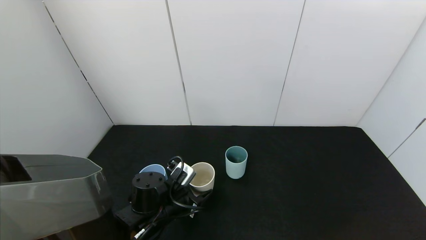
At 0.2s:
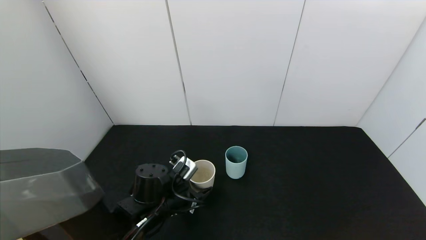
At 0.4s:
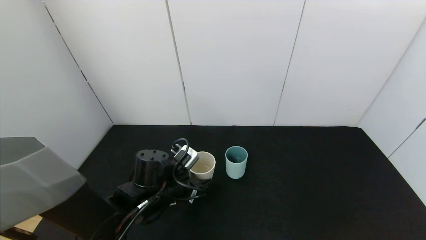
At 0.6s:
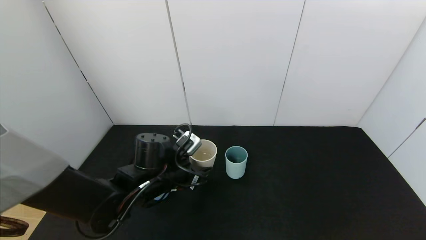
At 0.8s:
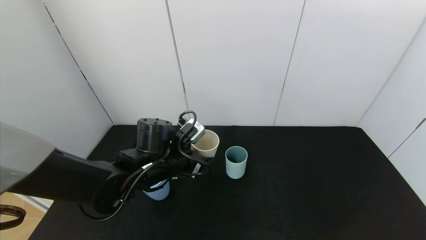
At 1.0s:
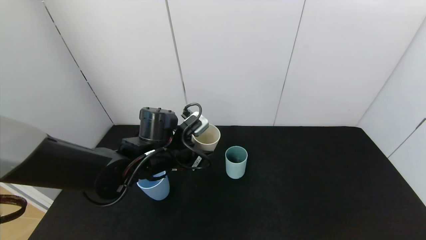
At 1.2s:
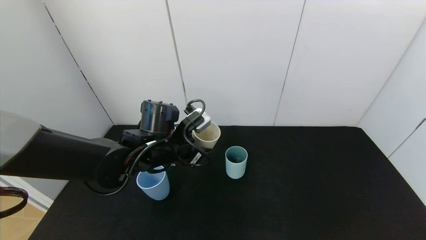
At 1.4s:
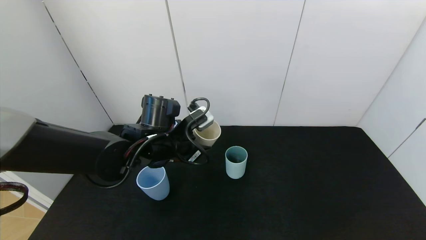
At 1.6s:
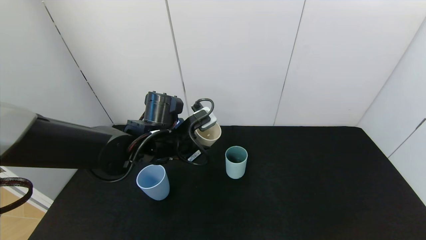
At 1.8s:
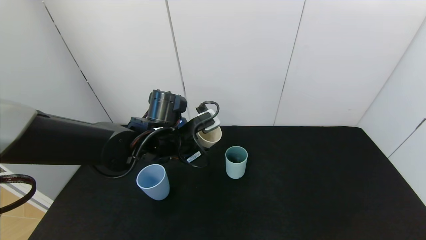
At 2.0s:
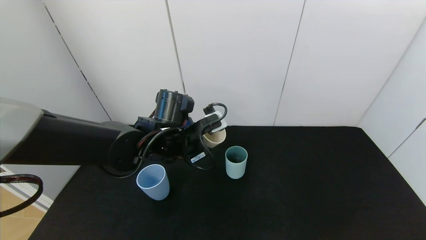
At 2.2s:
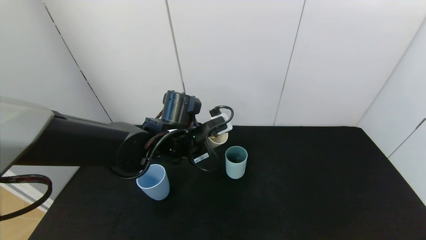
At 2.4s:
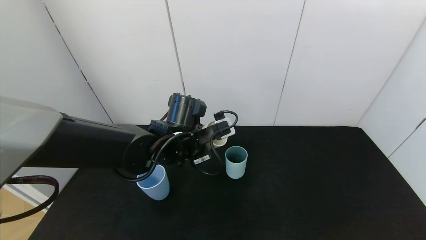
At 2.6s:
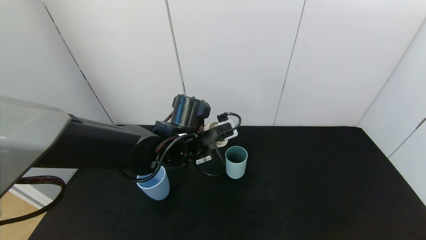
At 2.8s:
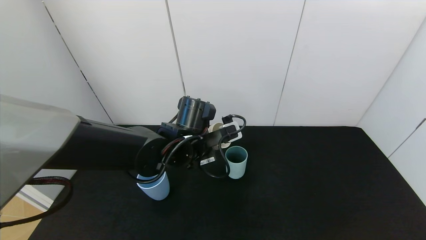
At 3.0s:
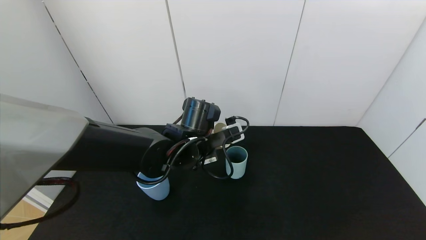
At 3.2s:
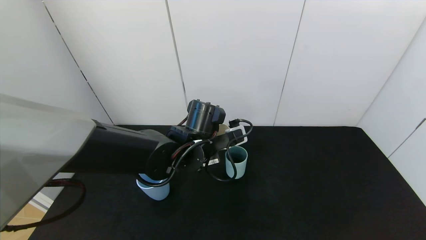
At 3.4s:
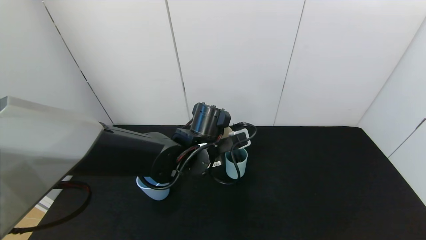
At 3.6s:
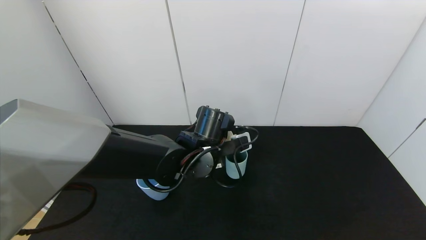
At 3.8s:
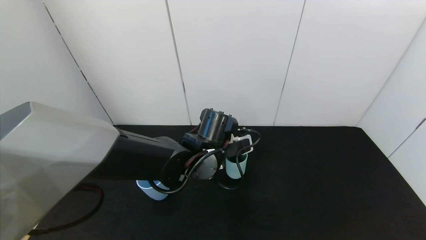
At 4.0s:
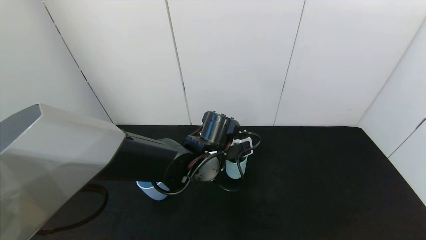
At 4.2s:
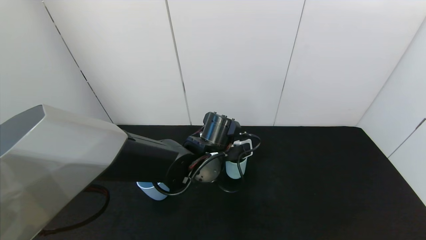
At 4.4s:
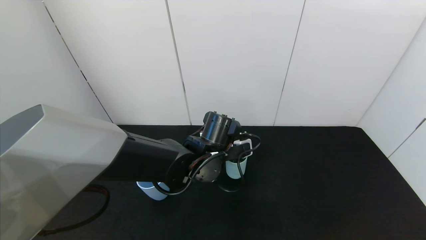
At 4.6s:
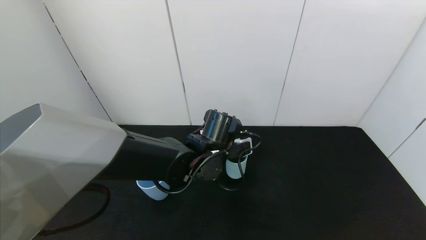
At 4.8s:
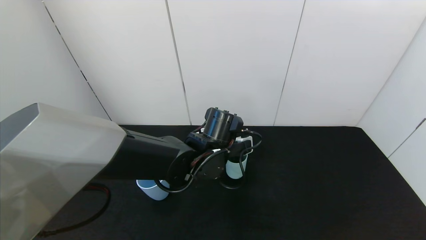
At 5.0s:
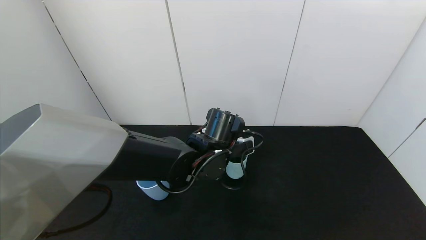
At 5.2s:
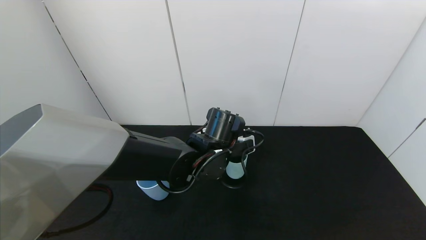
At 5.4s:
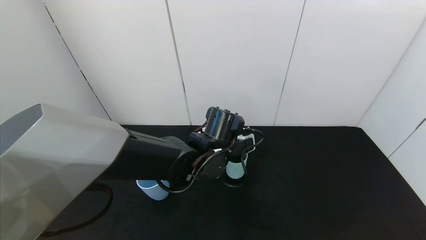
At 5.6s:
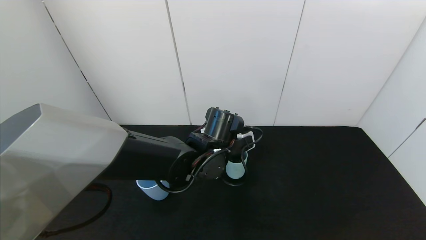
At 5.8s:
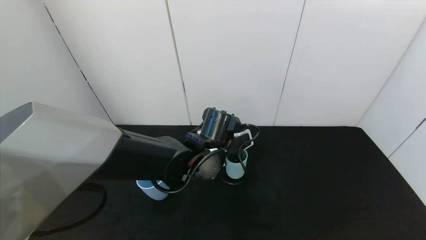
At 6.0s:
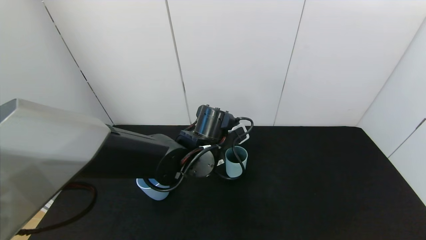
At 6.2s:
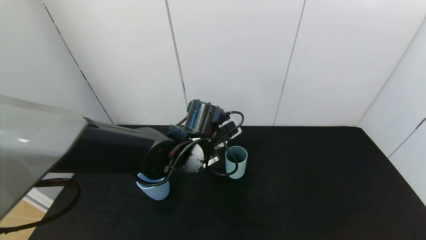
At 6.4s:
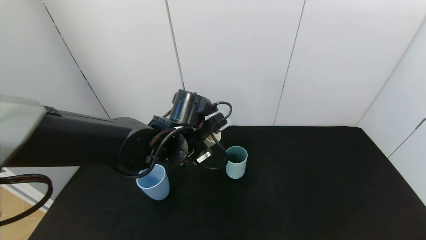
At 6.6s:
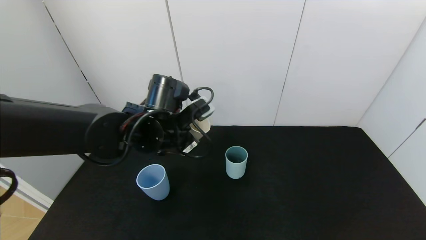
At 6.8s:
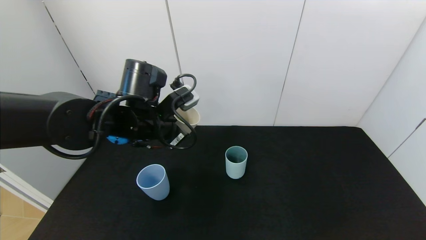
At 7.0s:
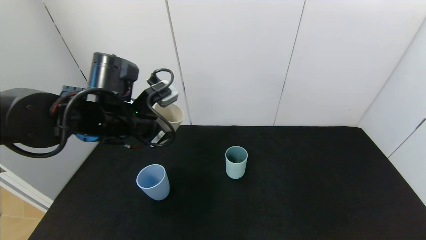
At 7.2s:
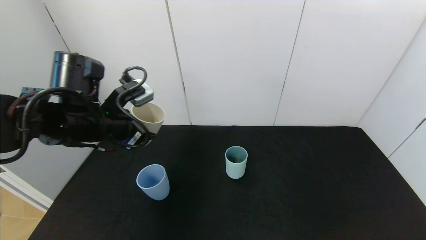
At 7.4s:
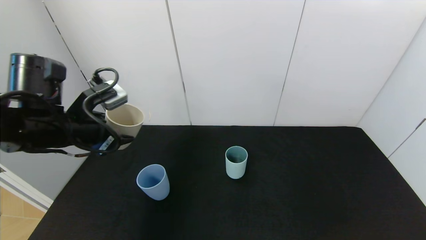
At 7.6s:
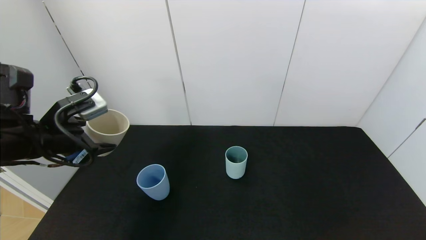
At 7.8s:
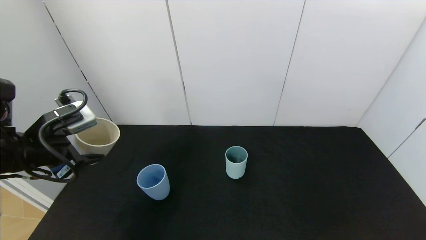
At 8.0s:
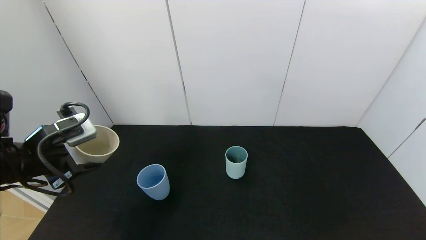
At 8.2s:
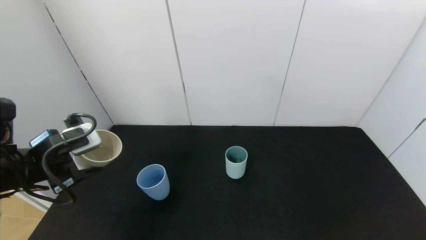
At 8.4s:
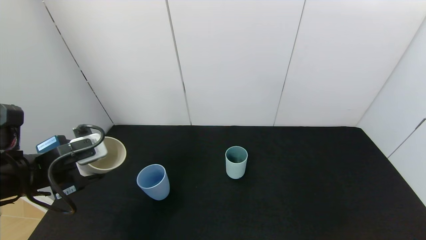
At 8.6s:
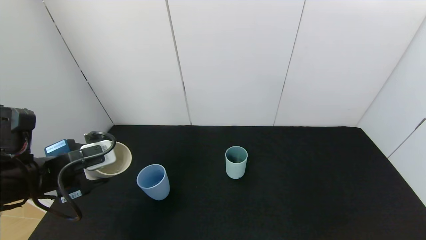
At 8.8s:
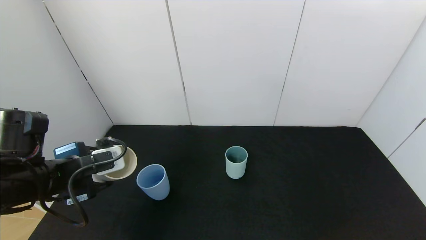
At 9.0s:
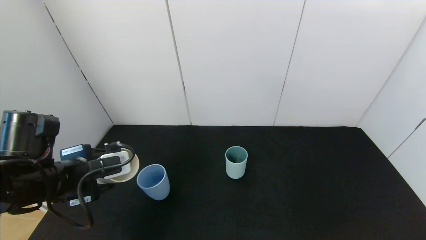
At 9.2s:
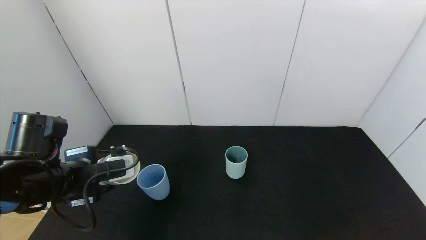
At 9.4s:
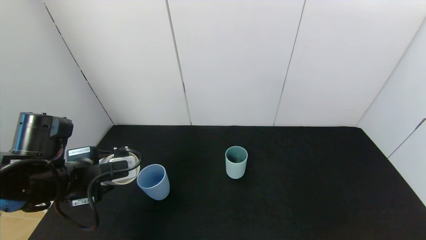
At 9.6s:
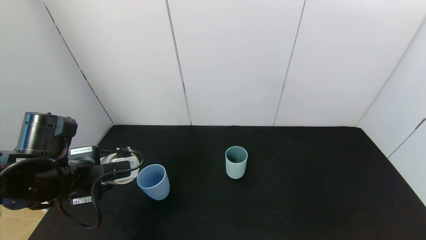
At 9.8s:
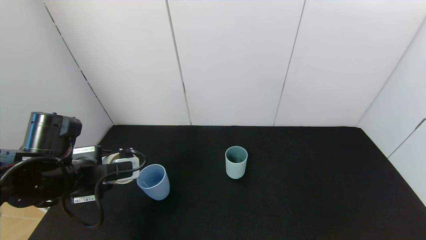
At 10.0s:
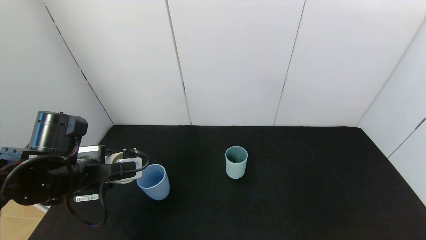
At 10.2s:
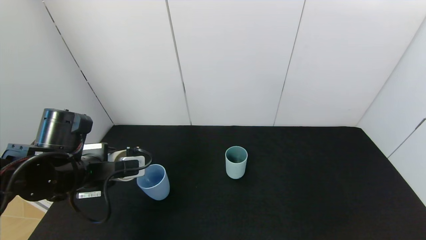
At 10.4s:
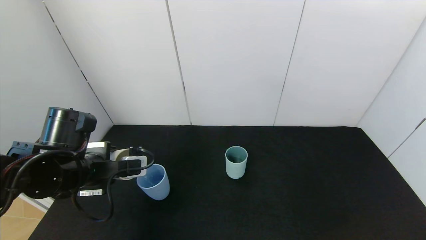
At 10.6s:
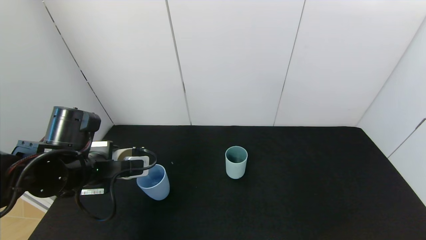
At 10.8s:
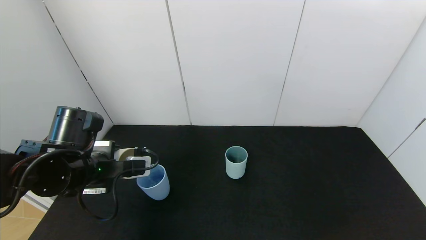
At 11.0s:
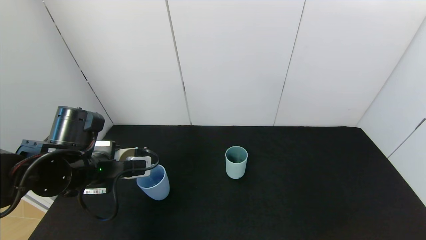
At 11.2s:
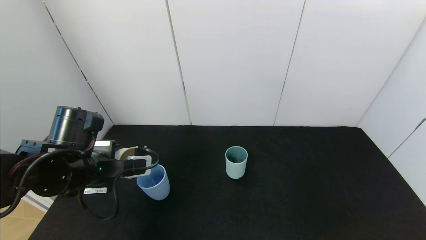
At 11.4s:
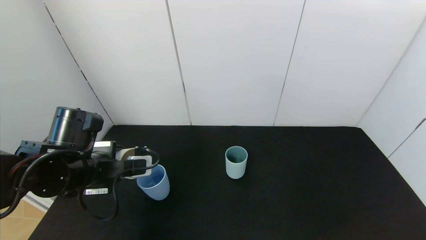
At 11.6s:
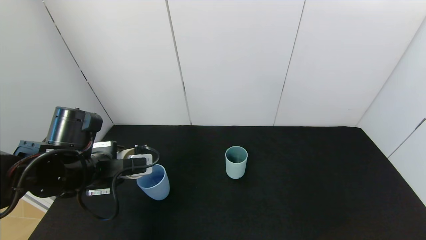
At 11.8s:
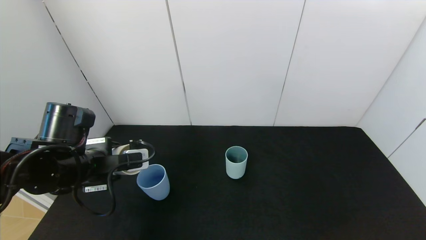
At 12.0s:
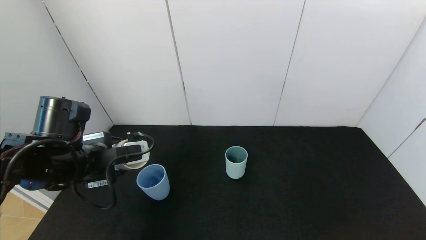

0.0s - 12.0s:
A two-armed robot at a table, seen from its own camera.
Task of the whole recording: use the gripper to pour the water into the other two cups on black table.
Step, 0.0s - 6.2s: Pour water into the green plastic cup with left gripper.
Step, 6.4s - 11.8s: Pour water into the blue plastic cup with left gripper.
0.0s - 1.6s: The left gripper shifts approximately 15 cm upward and forward.
1.6s - 3.0s: The left gripper is displaced to the right by approximately 5 cm.
3.0s - 6.0s: The grippers move only a little.
6.0s - 7.6s: The left gripper moves to the left, some 25 cm.
7.6s - 9.0s: The left gripper shifts about 5 cm downward.
9.0s - 12.0s: The grippers make only small movements.

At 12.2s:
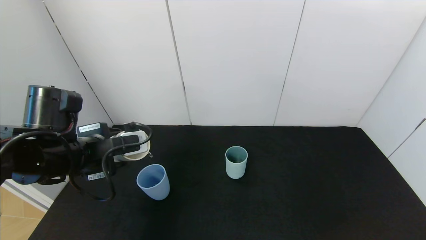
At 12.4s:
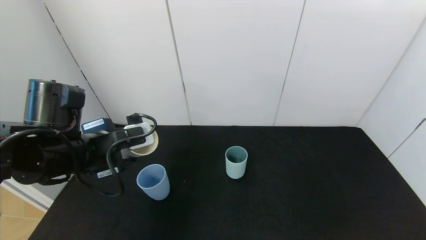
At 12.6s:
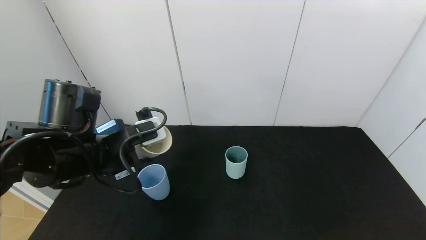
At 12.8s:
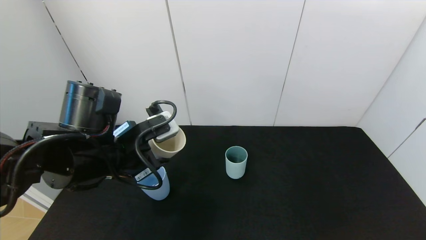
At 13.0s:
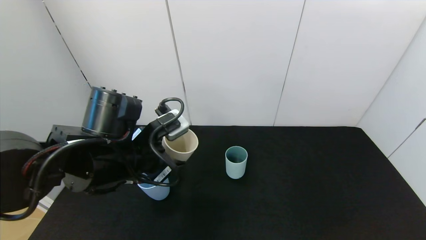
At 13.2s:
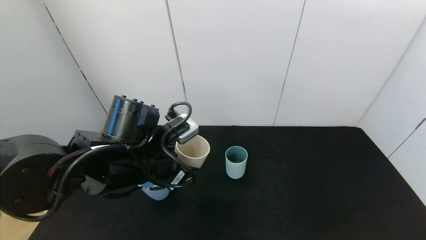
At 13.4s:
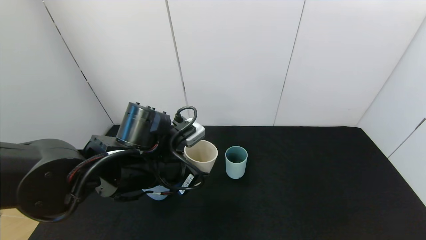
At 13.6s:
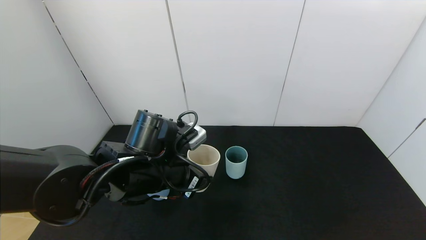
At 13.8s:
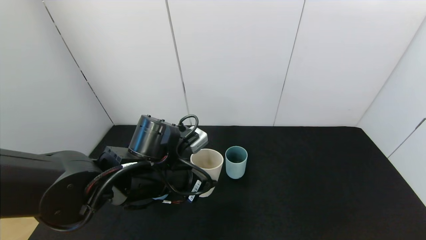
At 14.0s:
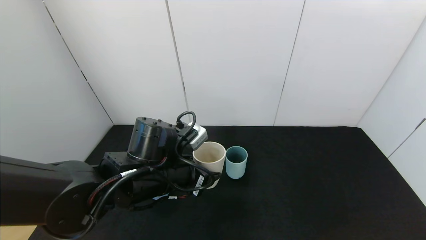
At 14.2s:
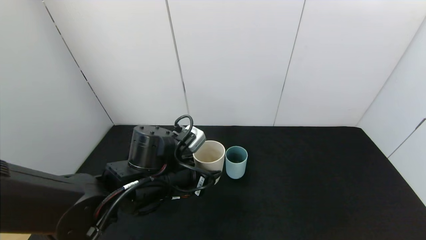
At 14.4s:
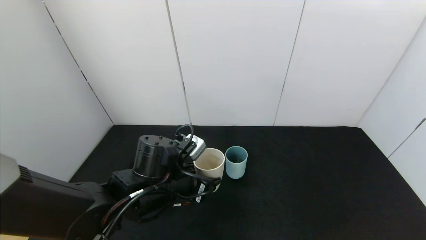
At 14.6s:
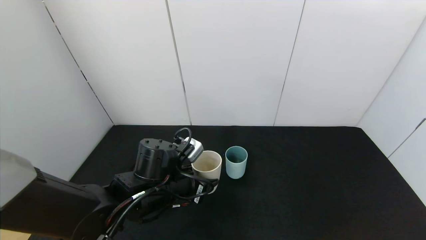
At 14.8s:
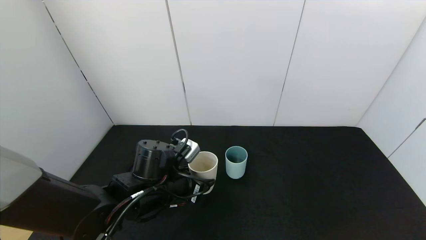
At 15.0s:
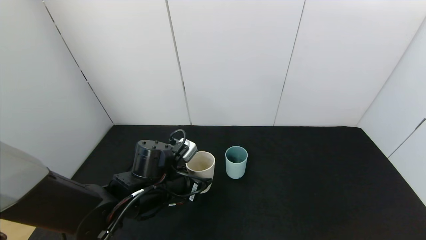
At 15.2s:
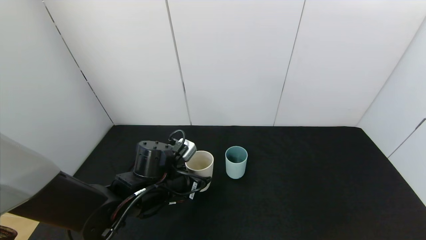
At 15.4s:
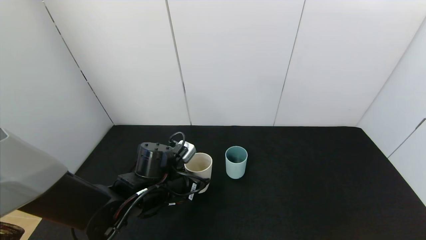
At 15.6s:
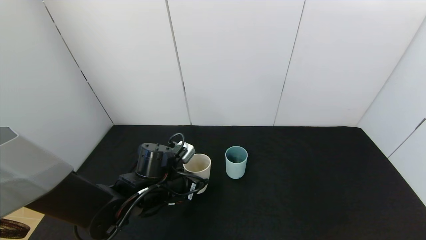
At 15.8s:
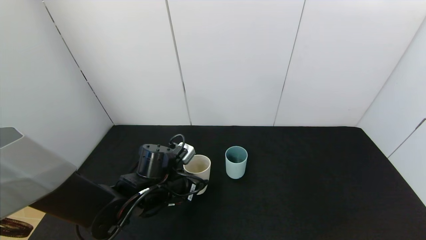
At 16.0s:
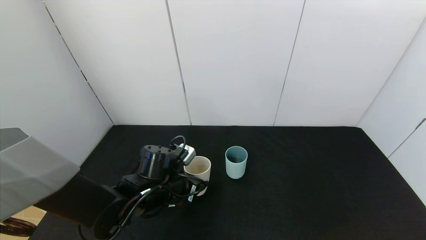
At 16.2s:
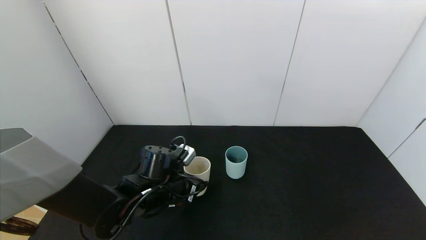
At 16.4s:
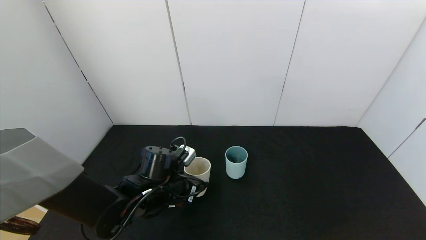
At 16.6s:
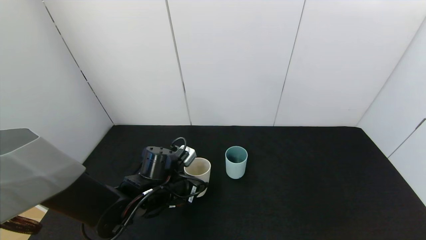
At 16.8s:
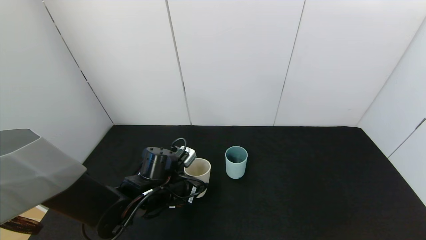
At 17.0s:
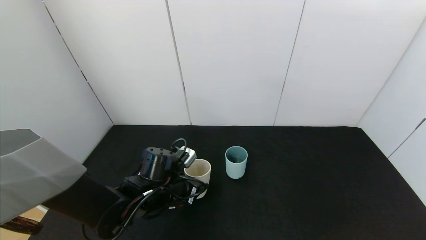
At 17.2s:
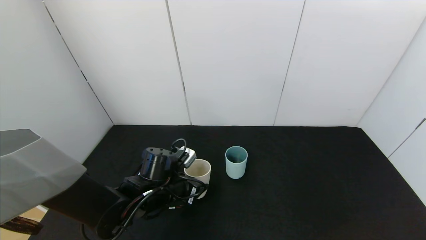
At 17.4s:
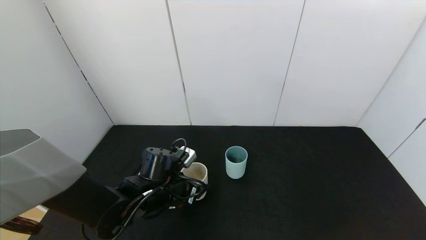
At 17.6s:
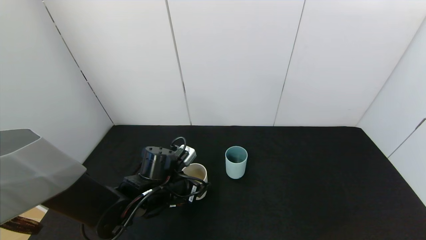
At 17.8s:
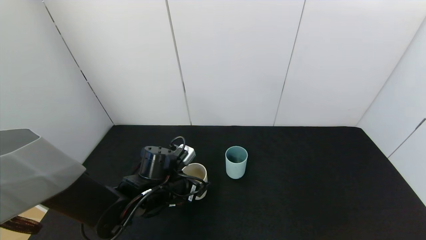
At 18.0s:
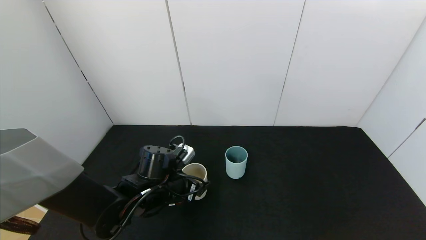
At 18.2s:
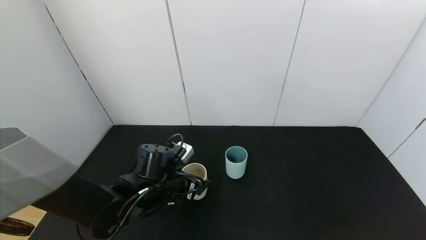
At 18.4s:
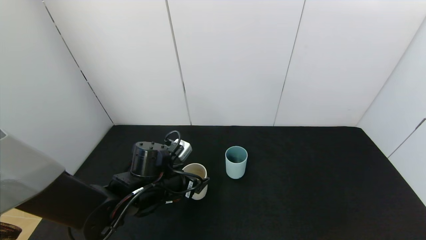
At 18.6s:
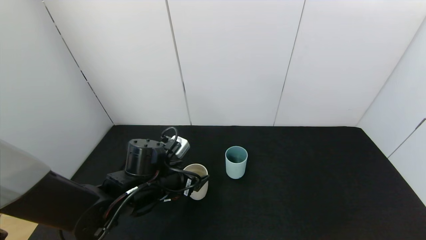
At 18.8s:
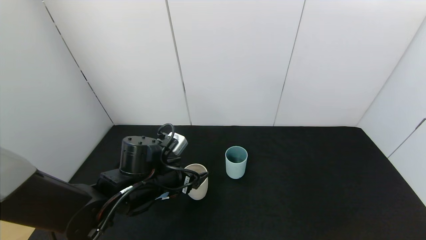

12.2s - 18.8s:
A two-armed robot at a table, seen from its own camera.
Task of the whole recording: use the gripper to pour the water into the other two cups on black table.
Step, 12.2s - 18.2s: Place the gray plastic cup on the table with left gripper.
12.2s - 13.8s: The left gripper moves to the right, some 15 cm.
13.8s - 15.4s: The left gripper heads downward, covering roughly 10 cm.
15.4s - 17.2s: There are only small adjustments of the grippers.
17.2s - 18.8s: The left gripper opens.
